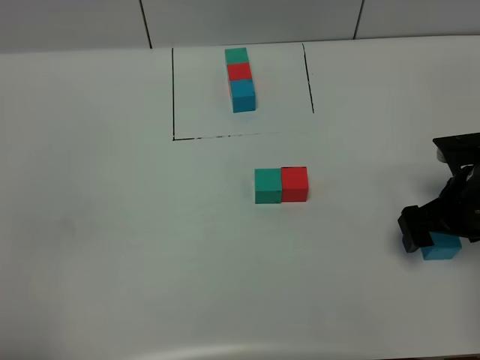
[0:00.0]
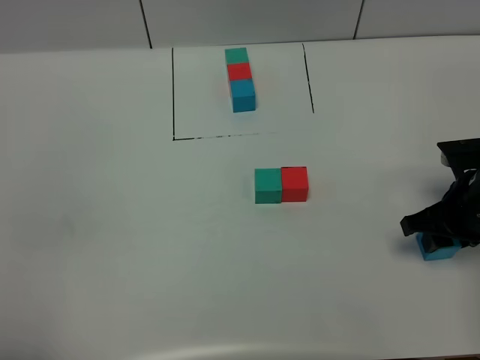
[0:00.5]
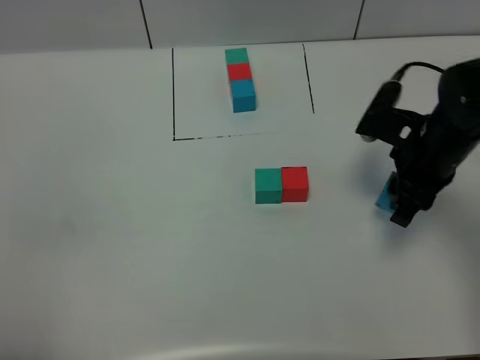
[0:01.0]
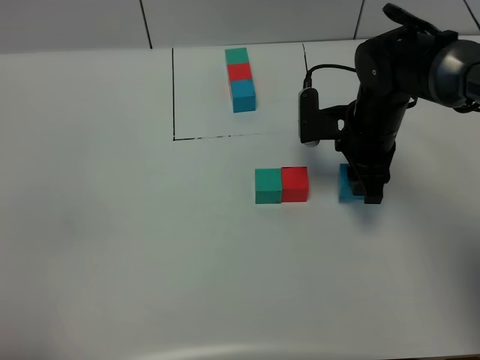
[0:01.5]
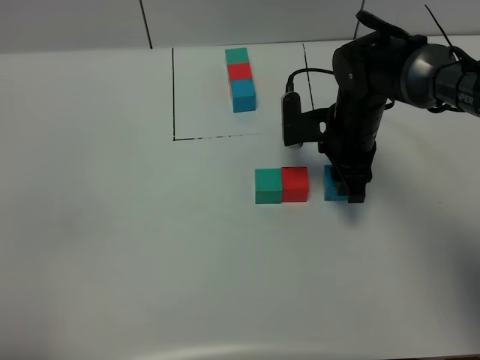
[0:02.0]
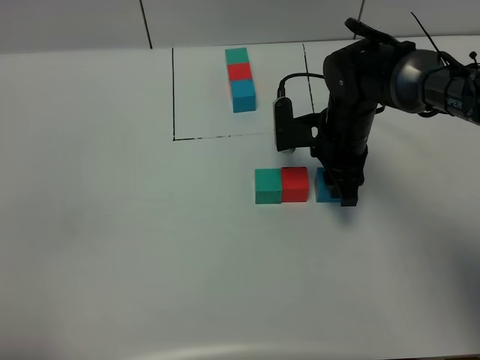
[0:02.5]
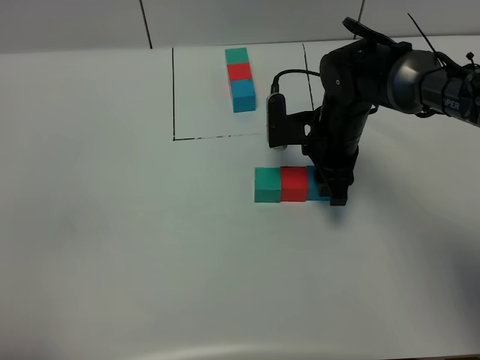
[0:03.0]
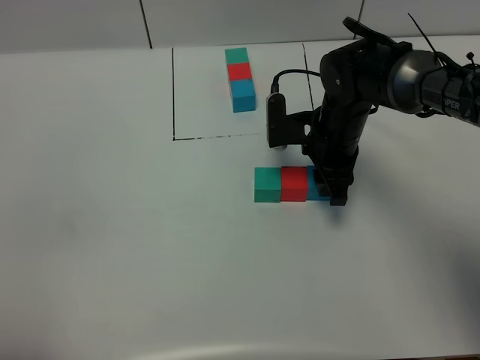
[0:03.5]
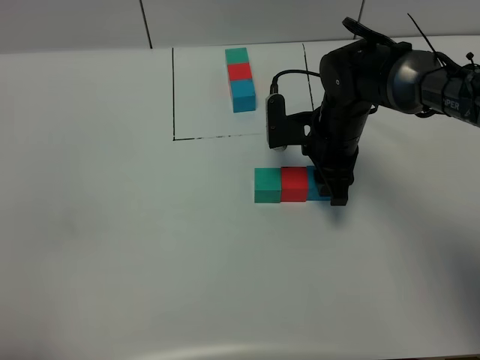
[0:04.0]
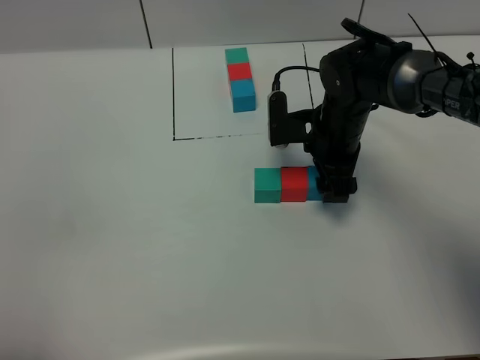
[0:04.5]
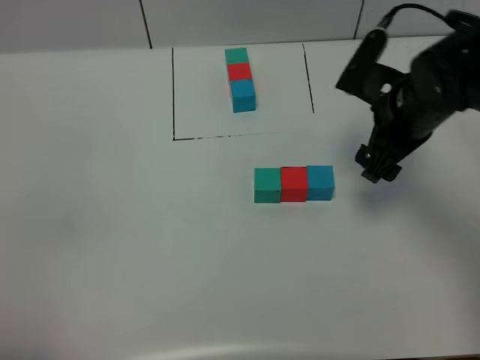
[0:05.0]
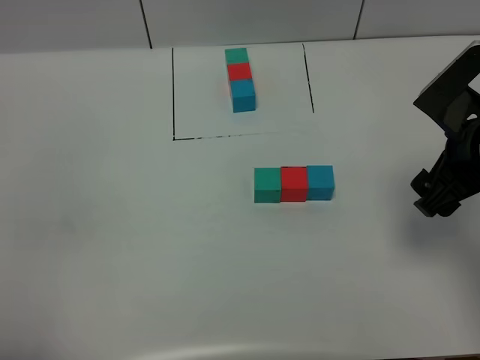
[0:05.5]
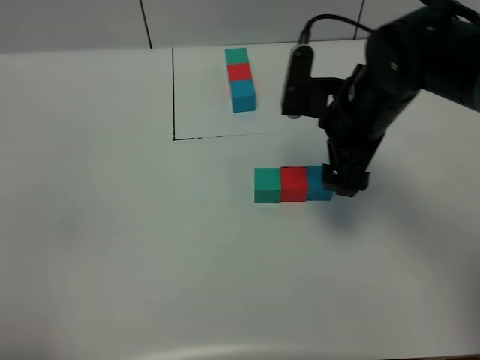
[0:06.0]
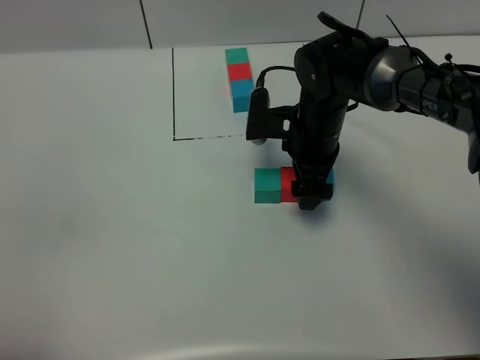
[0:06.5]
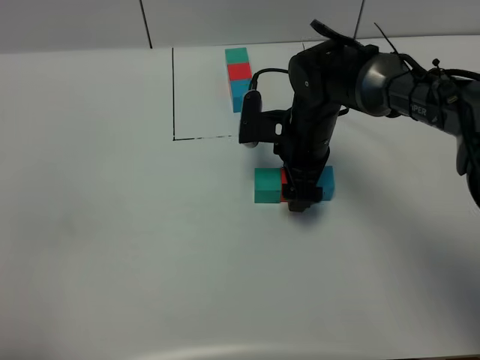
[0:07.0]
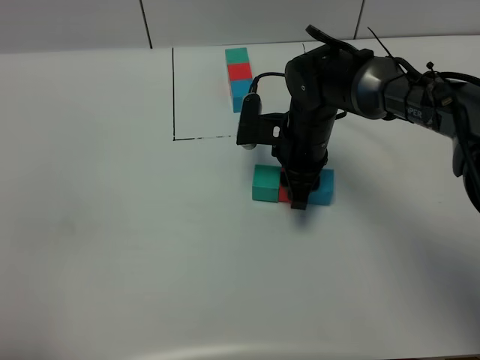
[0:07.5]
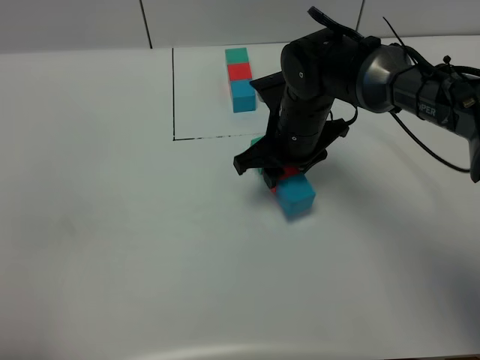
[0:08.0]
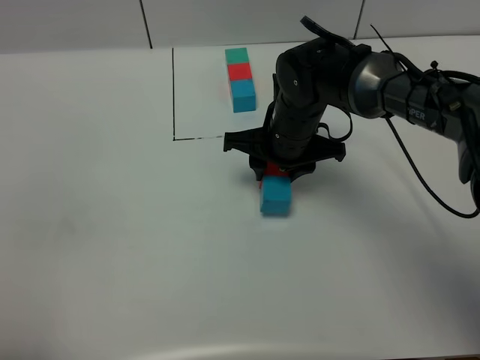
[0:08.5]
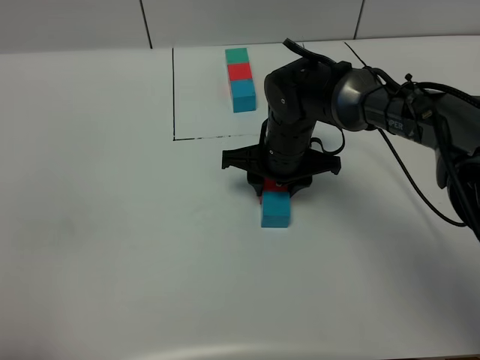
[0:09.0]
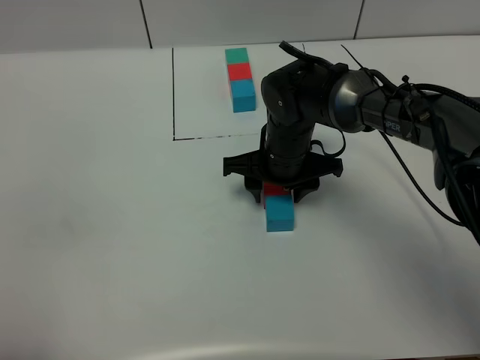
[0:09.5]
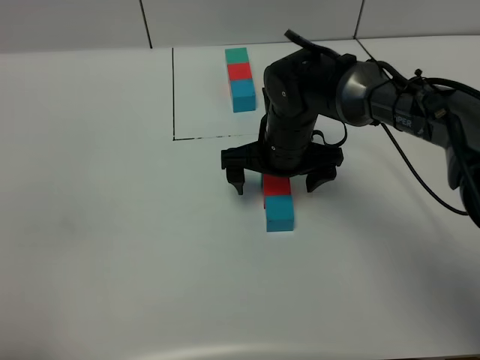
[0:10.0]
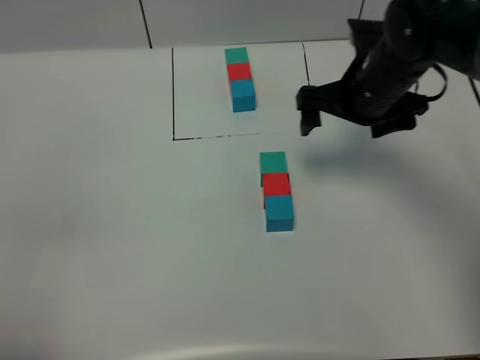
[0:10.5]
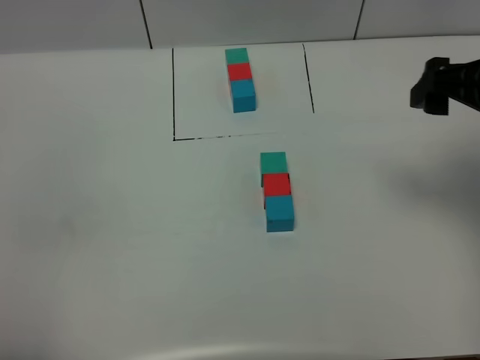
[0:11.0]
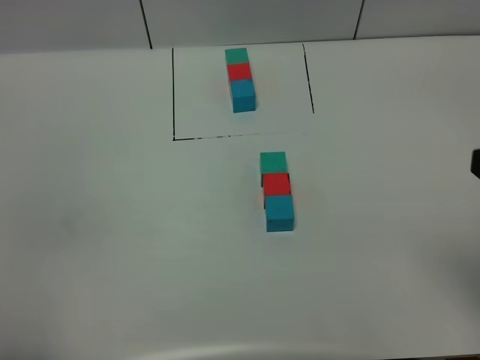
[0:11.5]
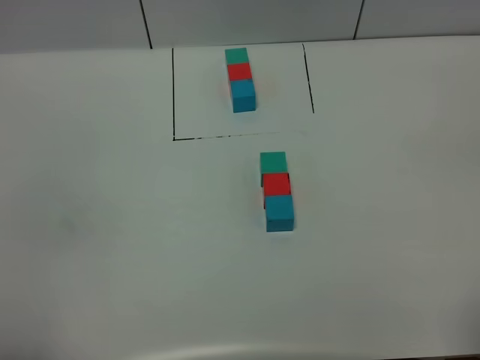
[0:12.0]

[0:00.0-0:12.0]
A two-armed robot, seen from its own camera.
Task of the whole recording: According to the building block template in front, assemble the scattered blocks together.
Step, 0:00.0 to 0:05.0: Put the blue cube on the right of the red cube.
Step, 0:05.5 to 0:10.5: Adjust the pose of the building blocks.
0:00.0 to 0:02.0: The right gripper is displaced to the left and forward by about 15 cm, and closes.
0:02.0 to 0:04.0: The grippers stay close to where they were, moving slightly.
0:04.0 to 0:06.0: The right gripper goes some 10 cm upward, goes to the right and returns, some 10 cm each way, and opens up.
0:06.0 to 0:08.0: The right gripper travels downward and to the left by roughly 10 cm, and closes its fingers.
0:08.0 to 0:10.0: The right gripper opens its fingers.
0:10.0 to 0:12.0: The right gripper is displaced backward, to the right and upward by roughly 40 cm.

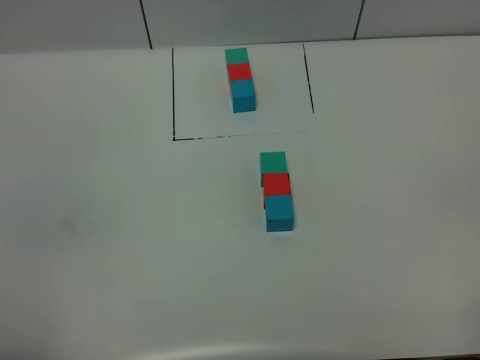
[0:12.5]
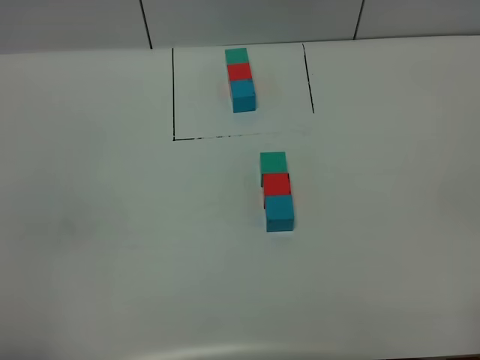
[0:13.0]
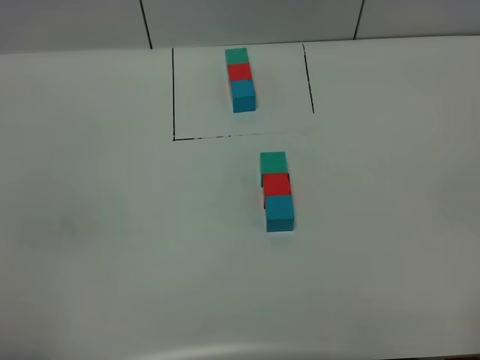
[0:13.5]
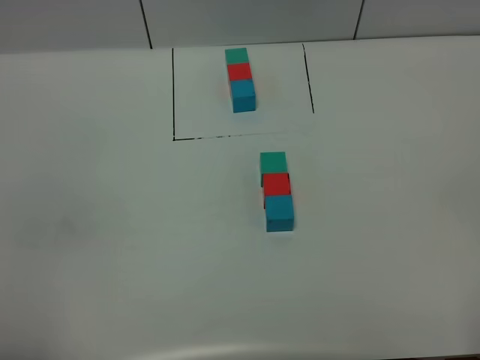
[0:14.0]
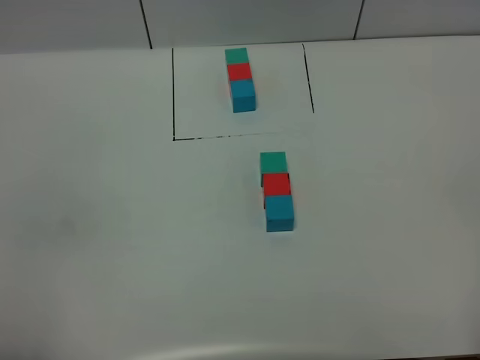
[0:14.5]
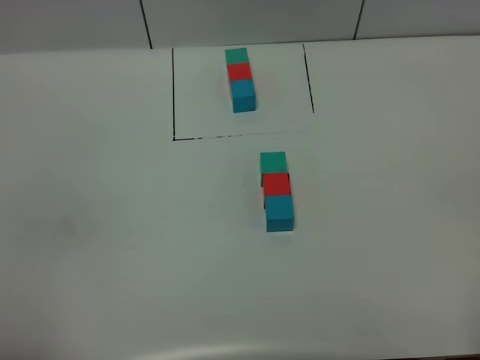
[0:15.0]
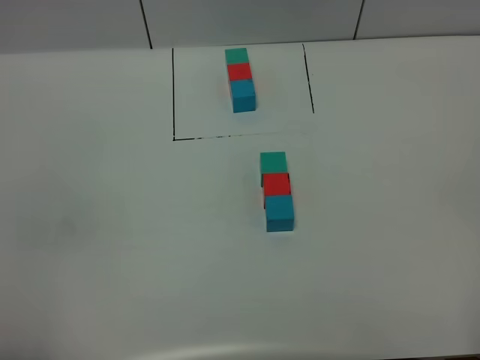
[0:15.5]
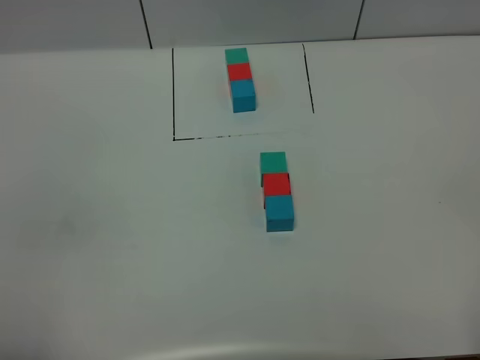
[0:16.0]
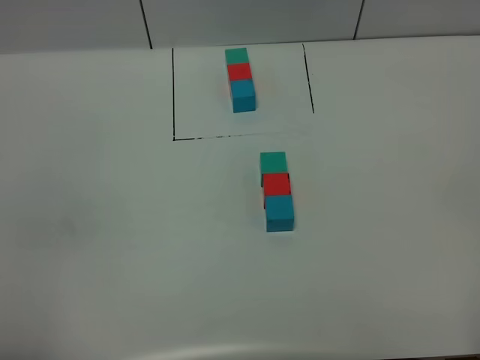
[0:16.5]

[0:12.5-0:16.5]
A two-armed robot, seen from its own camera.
Task of the whole recording: According to the building block template in front, assemble the scattered blocks together.
0:14.5 to 0:16.5: The two grippers keep their place.
